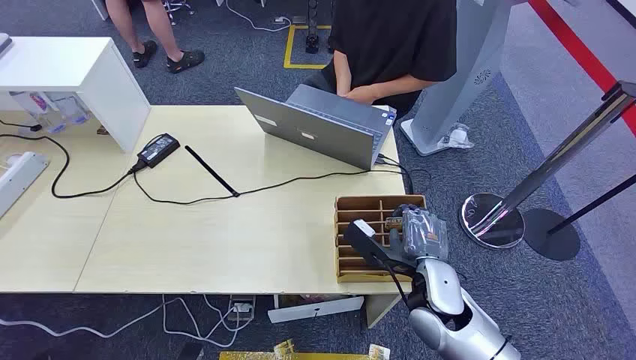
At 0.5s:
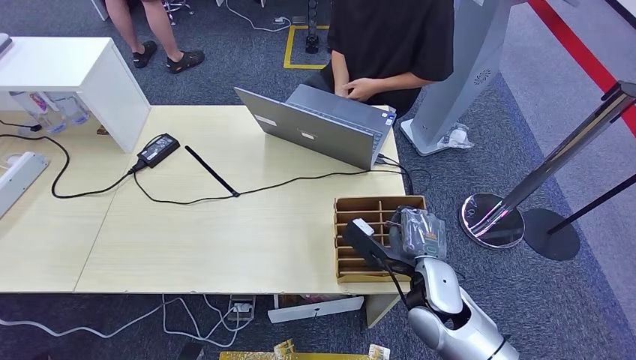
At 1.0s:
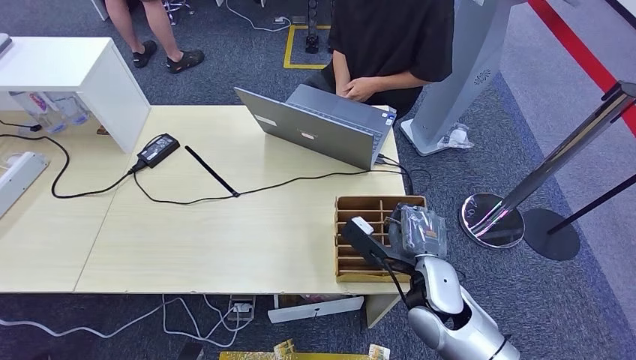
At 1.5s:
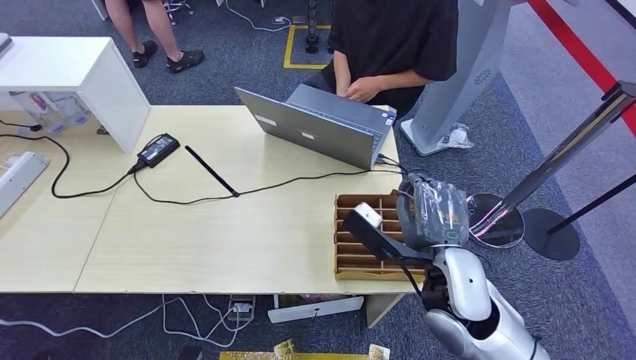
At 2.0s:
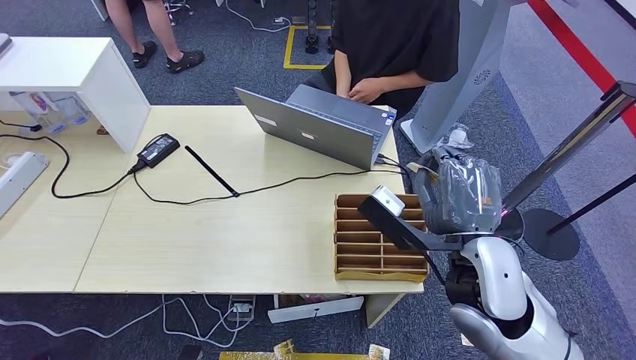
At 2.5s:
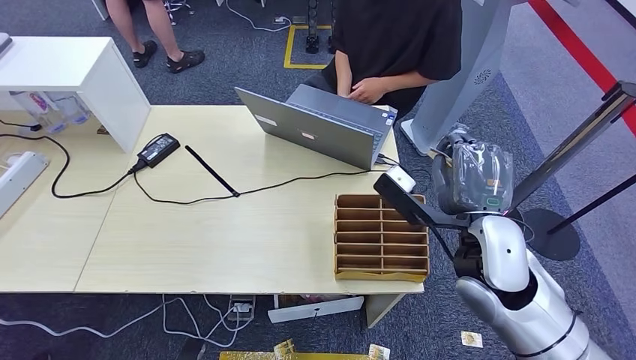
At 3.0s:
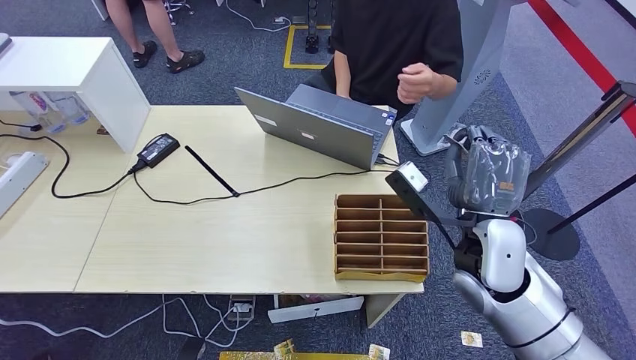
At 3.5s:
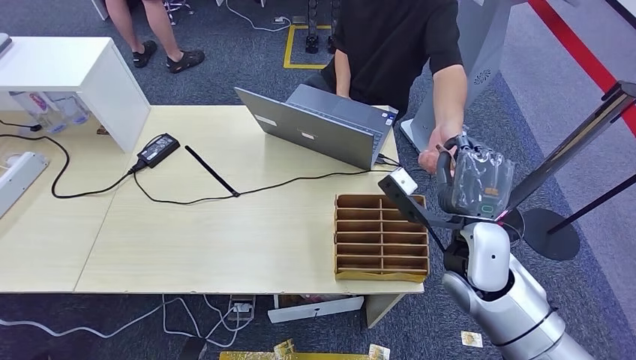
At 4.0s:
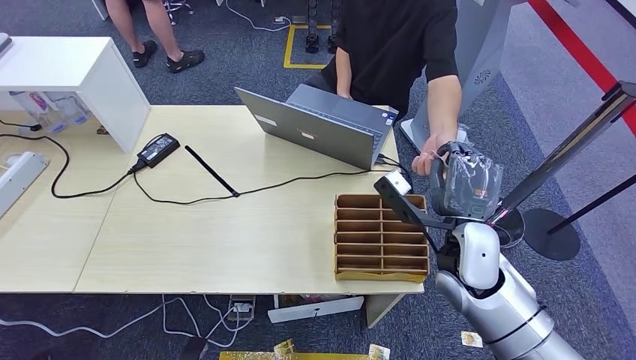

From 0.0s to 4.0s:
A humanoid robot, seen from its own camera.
Step, from 0.0s to 1.5s: Pick up the room card from the card holder.
Step, from 2.0s to 4.0s: Hand the room card to the target.
From 2.0s to 4.0s: The right hand travels downward by about 5 cm.
